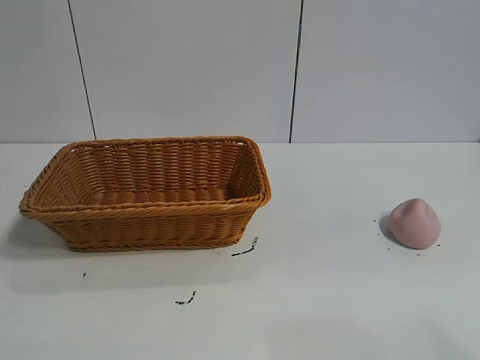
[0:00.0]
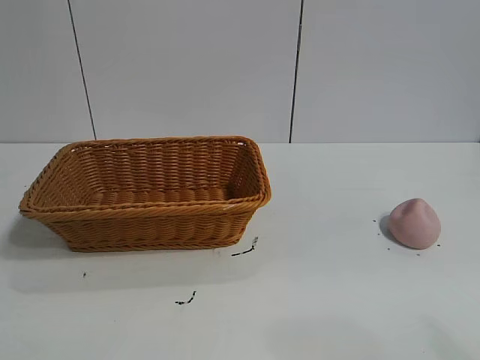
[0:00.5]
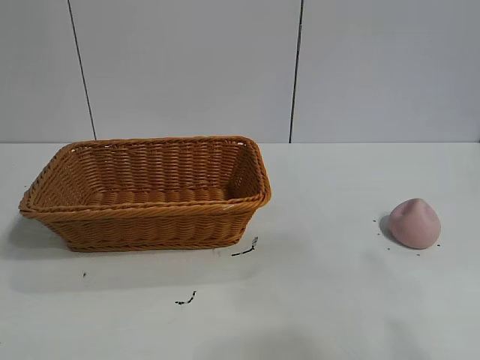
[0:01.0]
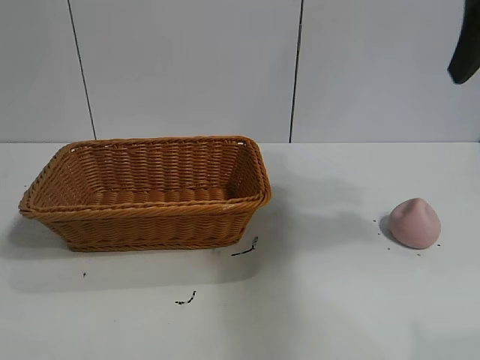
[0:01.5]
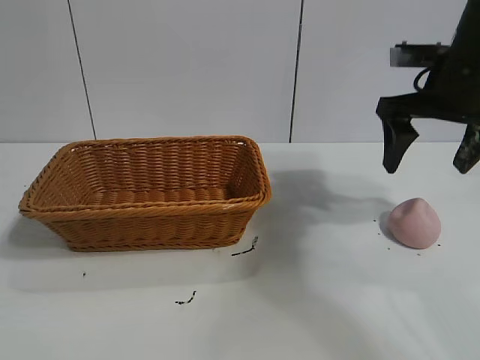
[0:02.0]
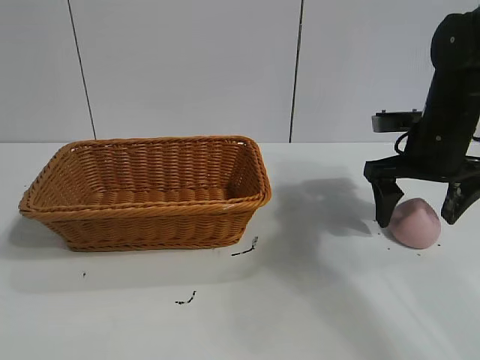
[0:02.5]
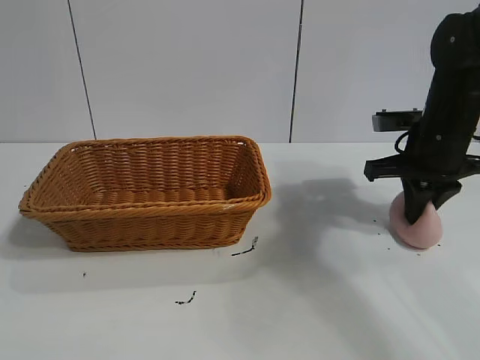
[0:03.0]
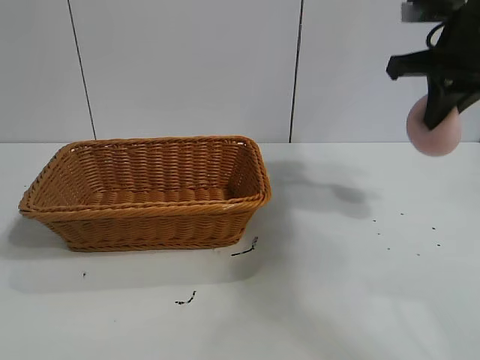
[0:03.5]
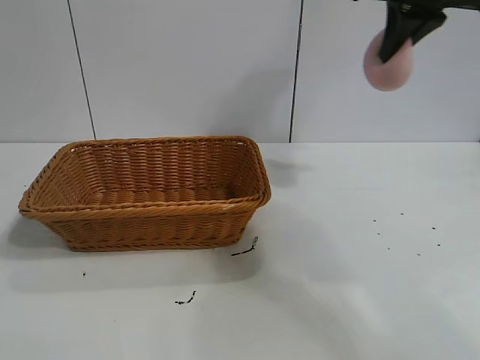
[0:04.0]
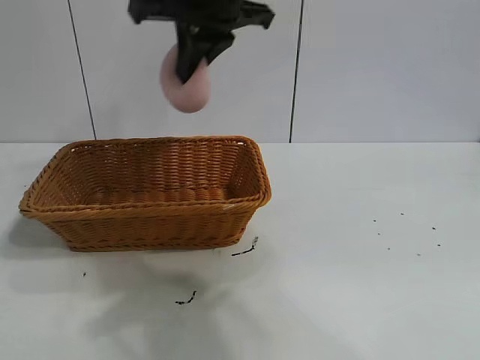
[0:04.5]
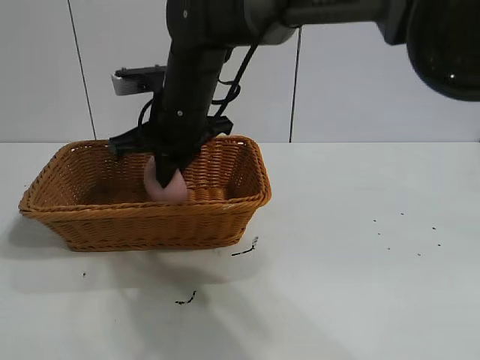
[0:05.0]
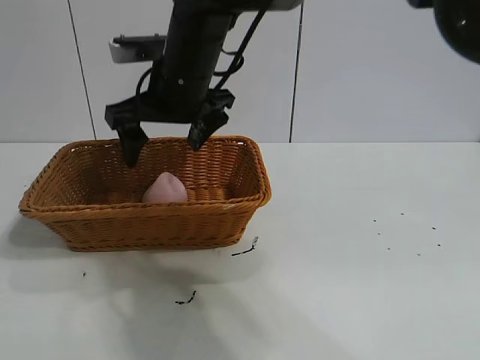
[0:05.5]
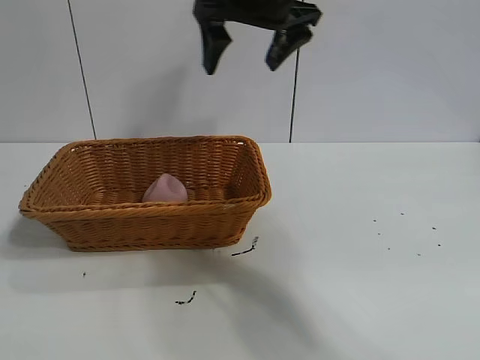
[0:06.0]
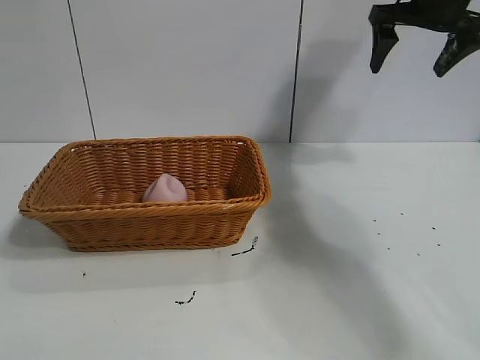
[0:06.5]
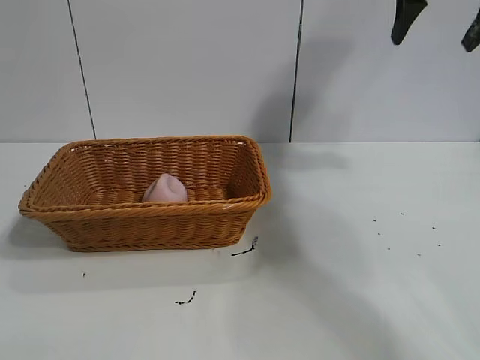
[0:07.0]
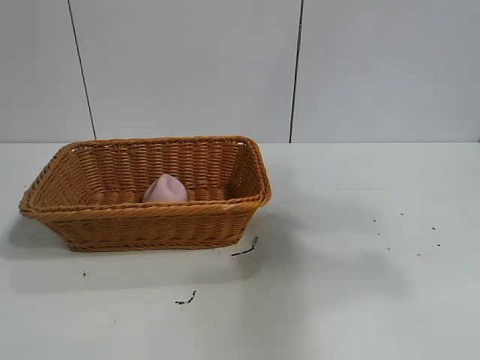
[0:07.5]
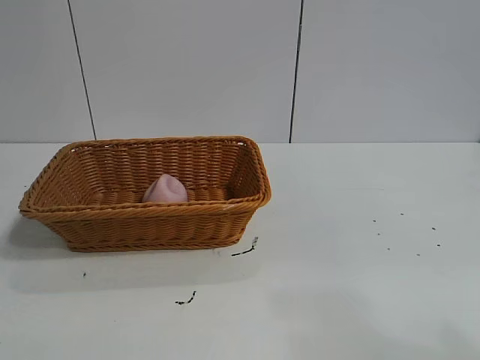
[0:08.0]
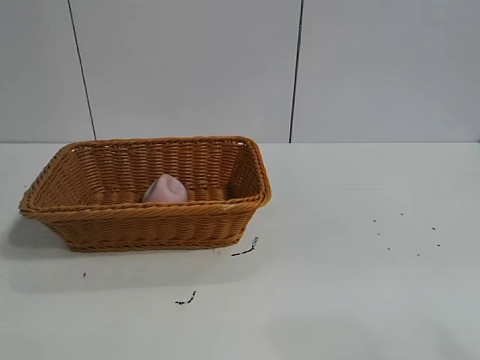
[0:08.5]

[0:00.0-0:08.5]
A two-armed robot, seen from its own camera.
Task of the whole recording: pick up the peach and put it into the basket.
Step, 0:01.0 to 0:03.0: Grasp the peach with right gripper.
Step, 0:03.5 to 0:05.5: Place the peach in the basket with right gripper.

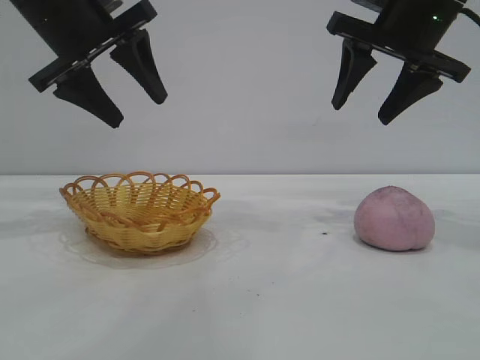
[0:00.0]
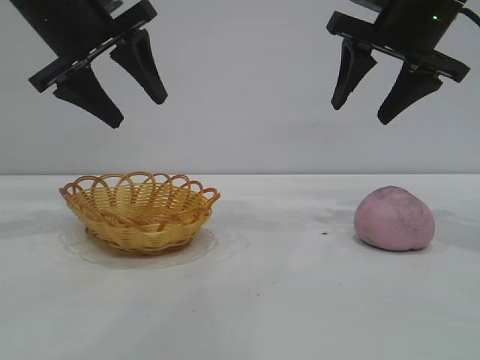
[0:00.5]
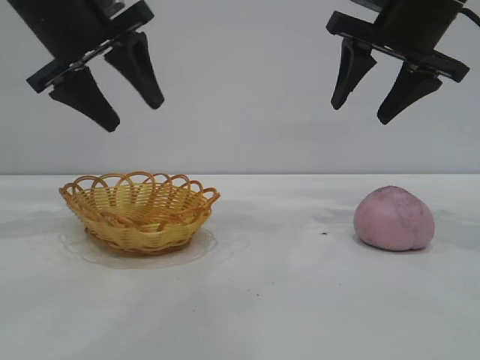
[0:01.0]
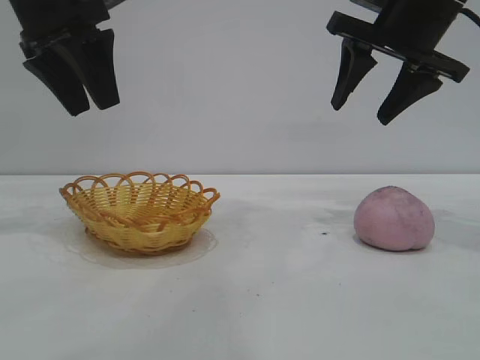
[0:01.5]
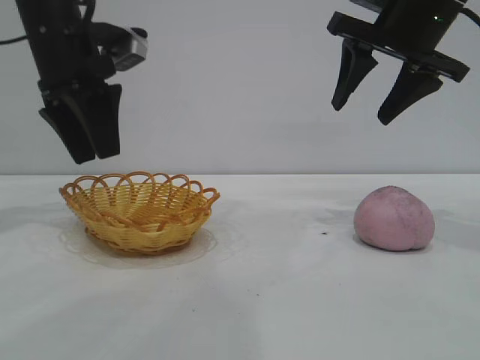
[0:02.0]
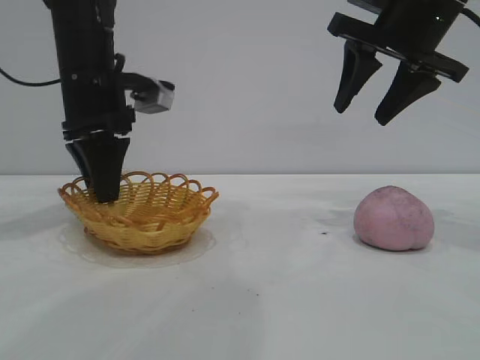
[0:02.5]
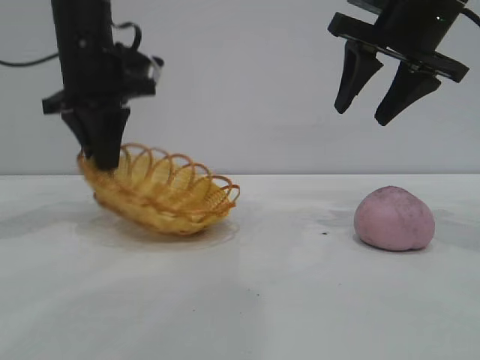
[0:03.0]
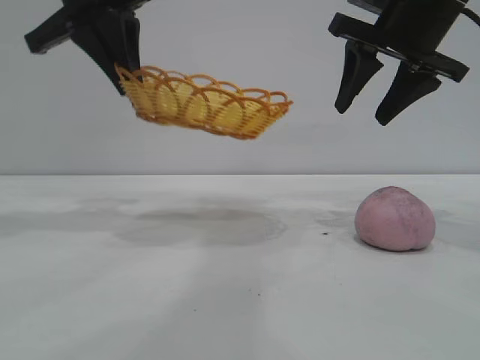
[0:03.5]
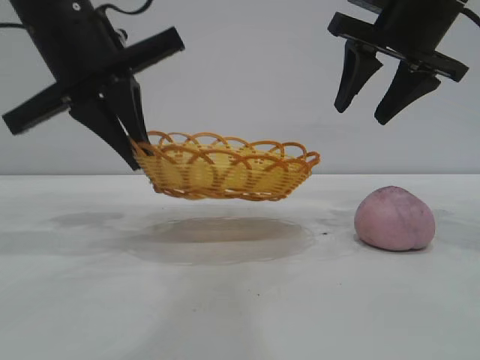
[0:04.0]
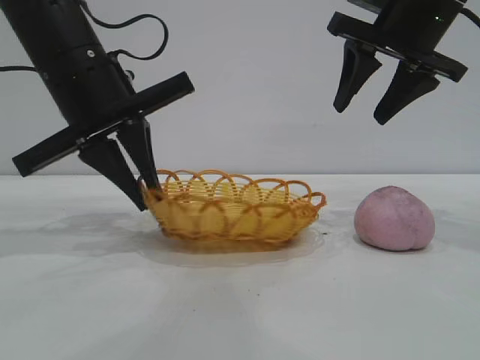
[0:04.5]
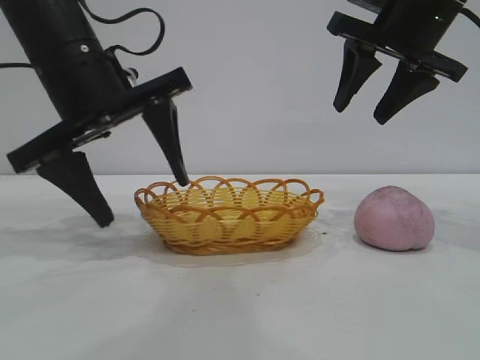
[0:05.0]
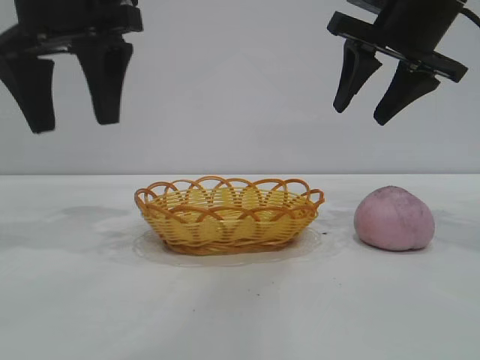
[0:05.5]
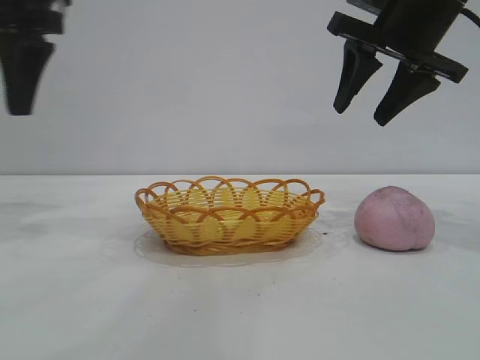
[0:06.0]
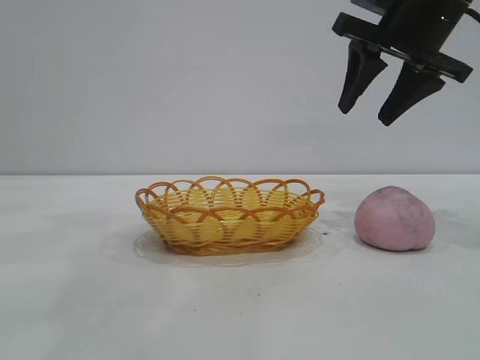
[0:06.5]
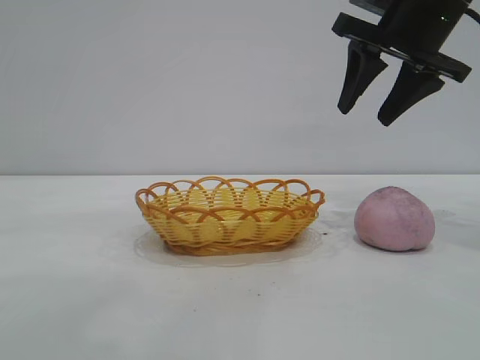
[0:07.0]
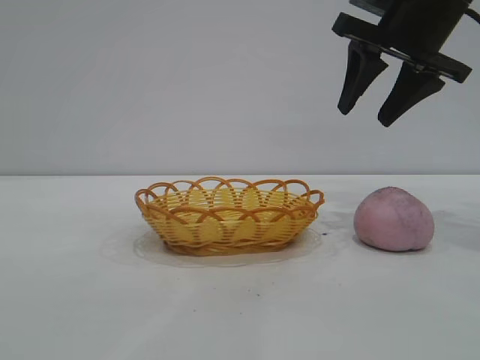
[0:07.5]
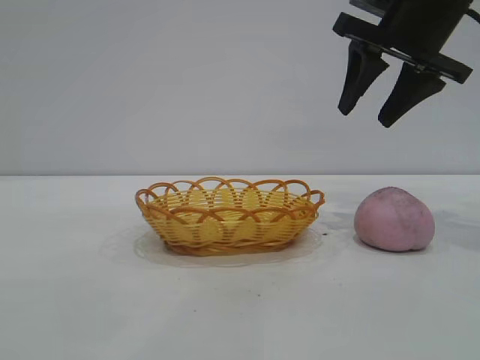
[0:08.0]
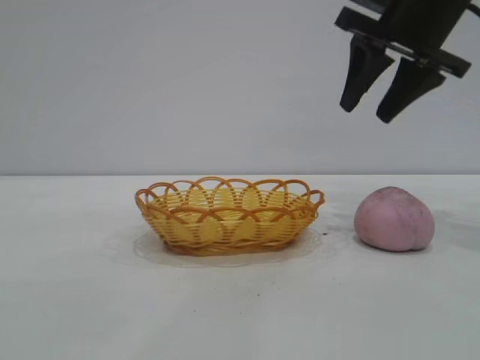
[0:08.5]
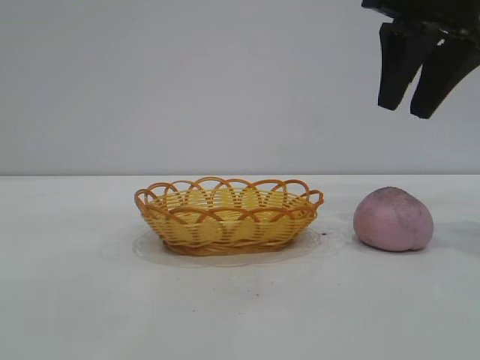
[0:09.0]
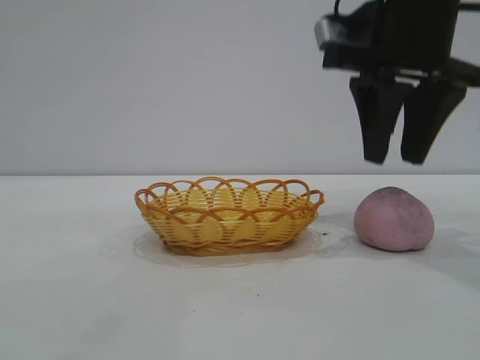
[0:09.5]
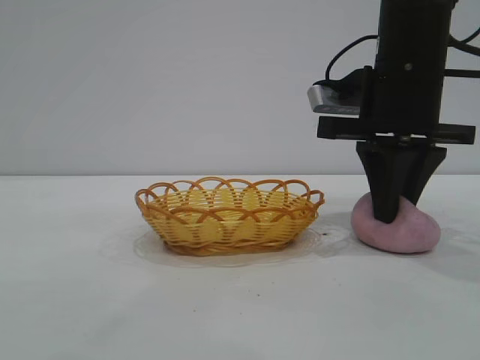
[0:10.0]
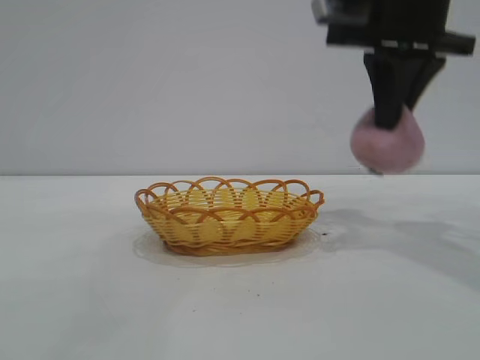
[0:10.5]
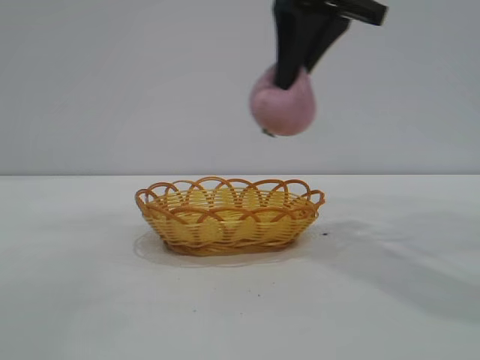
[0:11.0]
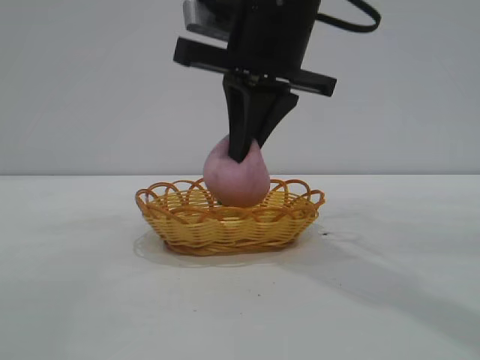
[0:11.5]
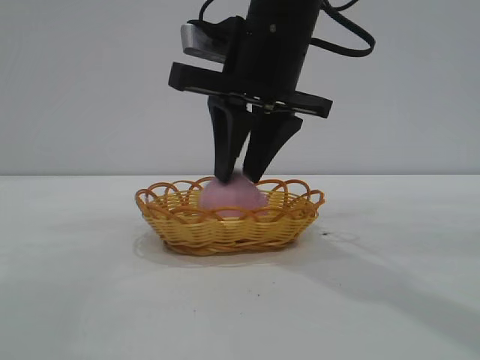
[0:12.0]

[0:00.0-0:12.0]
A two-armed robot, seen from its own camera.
Task of the whole recording: pick up the peach and put it into the basket.
Step, 0:00.0 to 0:05.0: Move the basket to the center of view.
Step, 0:05.5 to 0:10.0: Pick up the peach.

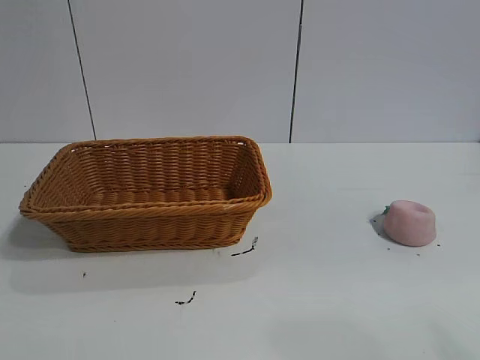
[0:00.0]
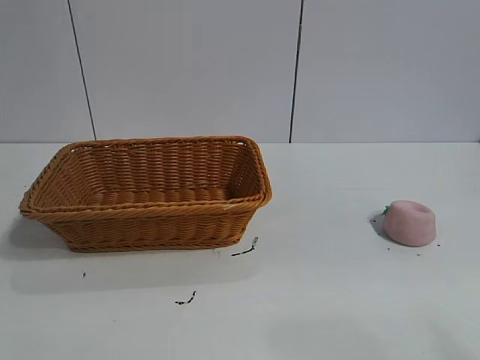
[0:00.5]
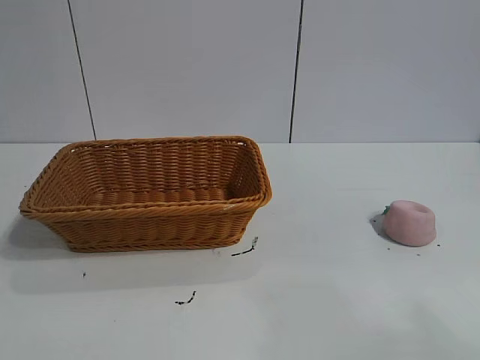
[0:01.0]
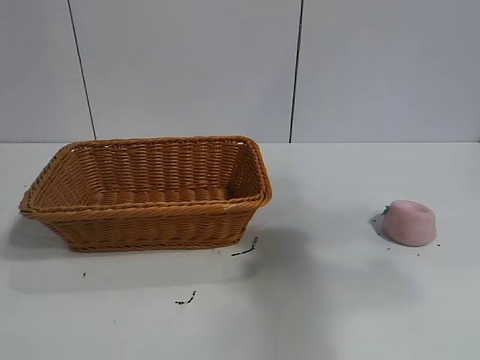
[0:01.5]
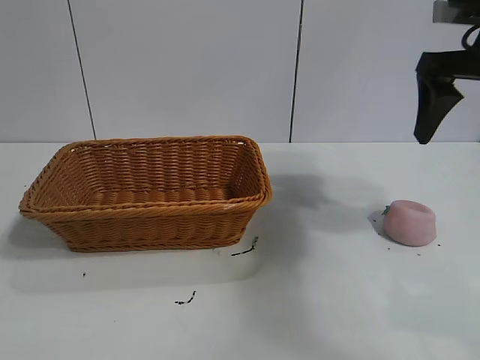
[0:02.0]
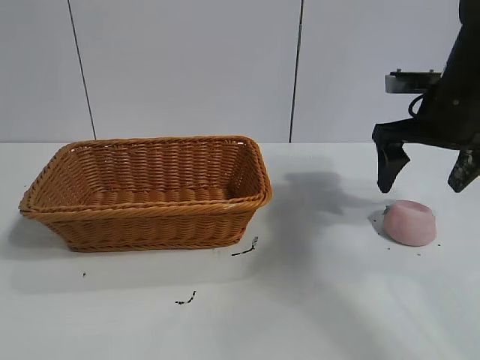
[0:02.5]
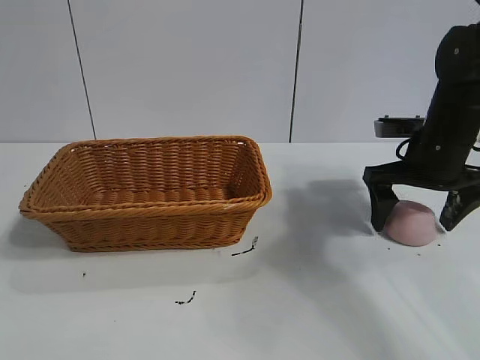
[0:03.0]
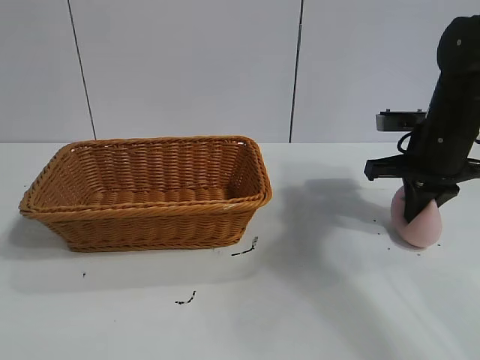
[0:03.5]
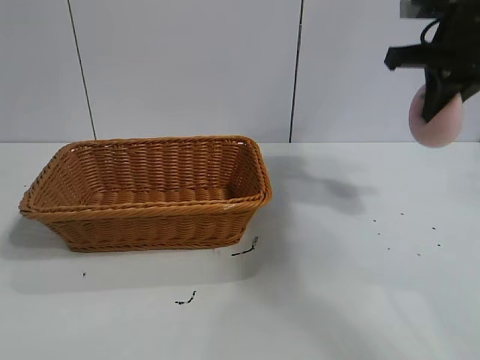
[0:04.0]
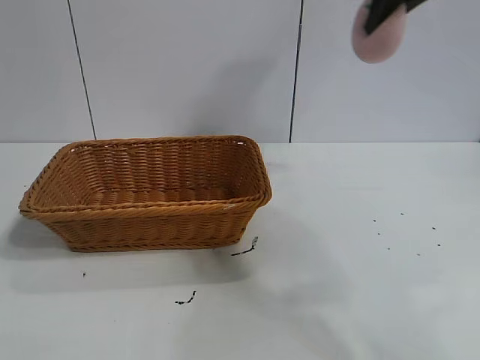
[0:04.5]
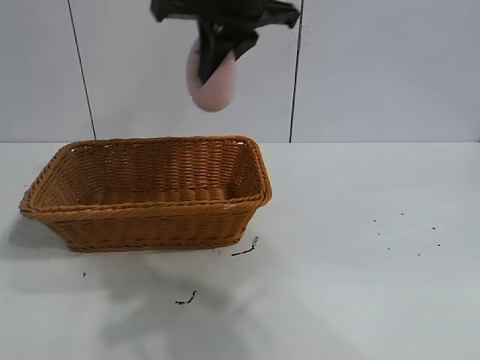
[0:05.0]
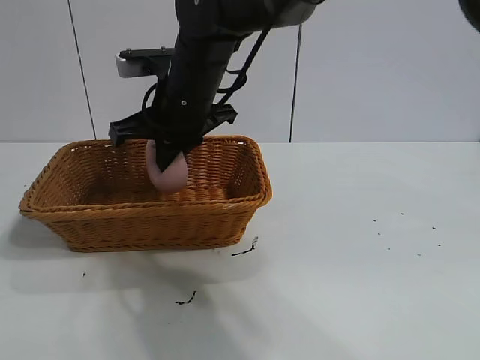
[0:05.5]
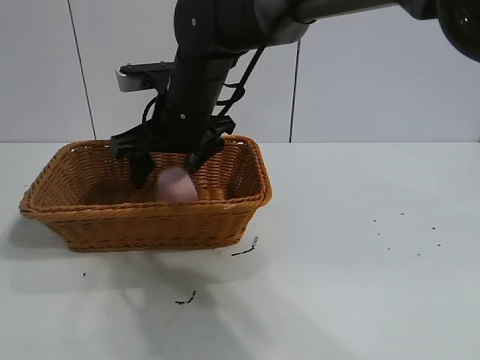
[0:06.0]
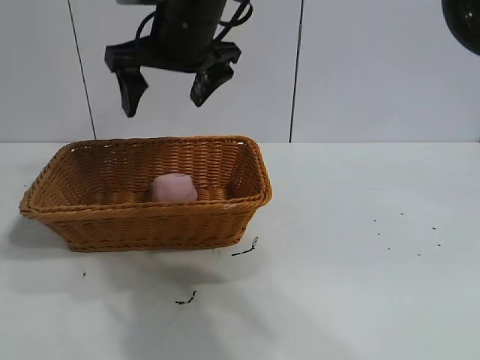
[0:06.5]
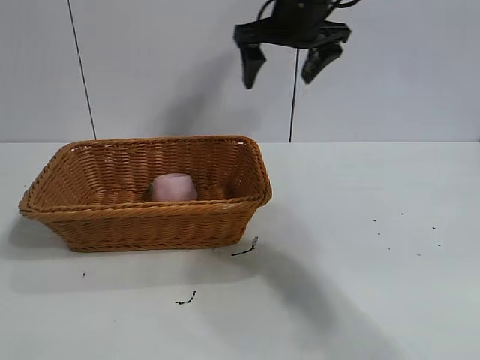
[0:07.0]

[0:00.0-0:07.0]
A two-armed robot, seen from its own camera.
Task of the whole recording: pick up the peach and put it into the basket.
Step, 0:01.0 to 0:03.0: Grasp the peach with right gripper.
Step, 0:03.5 to 0:06.0: Place the peach in the basket with right gripper.
